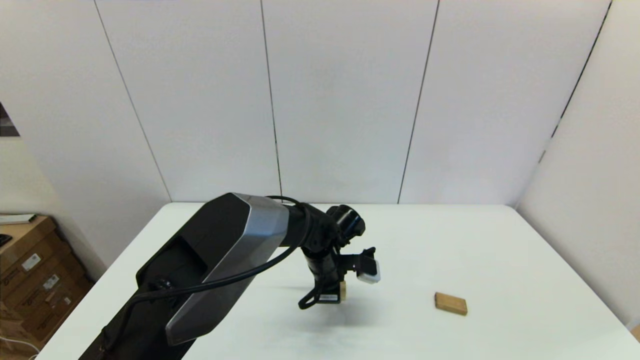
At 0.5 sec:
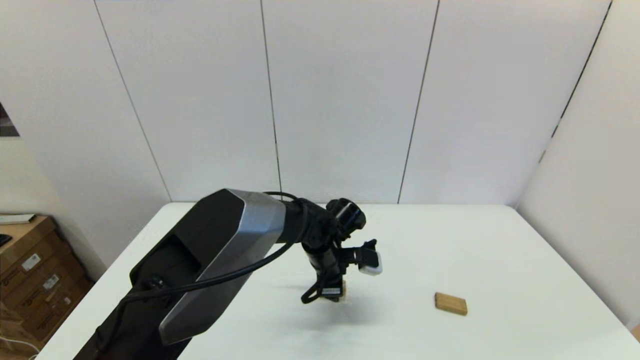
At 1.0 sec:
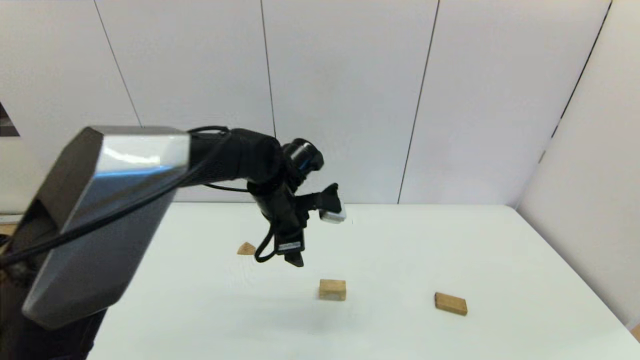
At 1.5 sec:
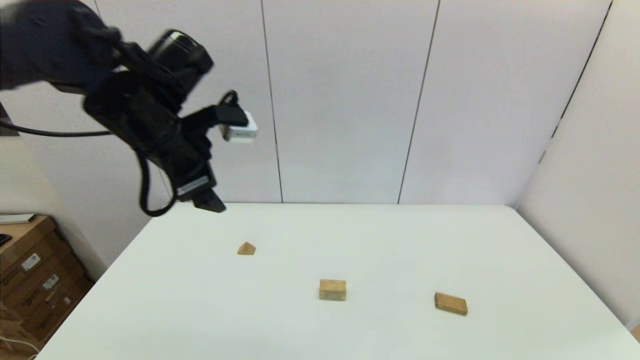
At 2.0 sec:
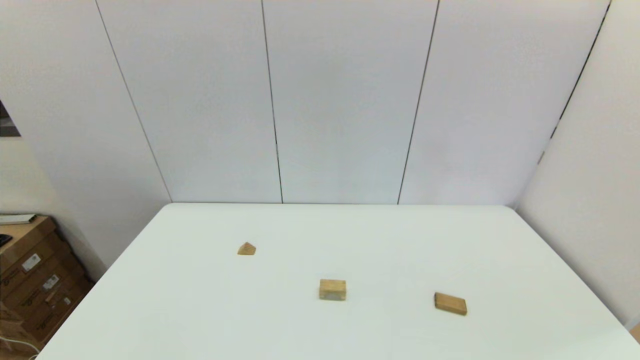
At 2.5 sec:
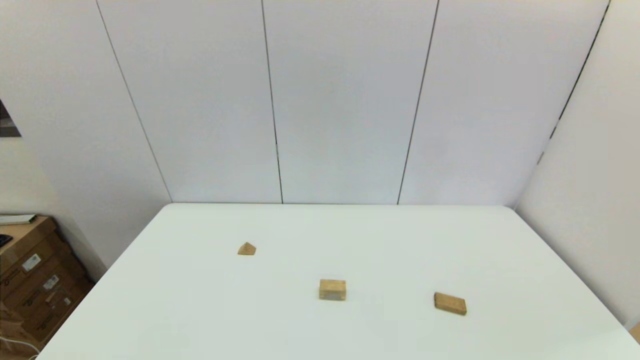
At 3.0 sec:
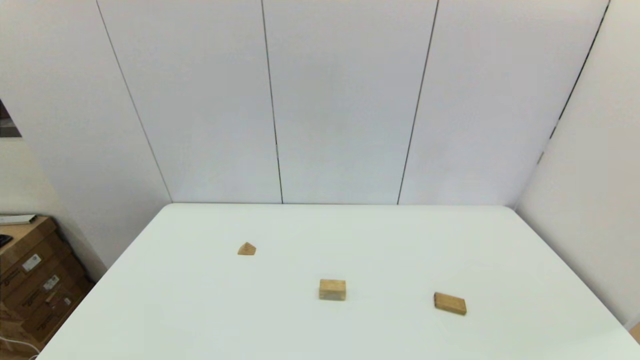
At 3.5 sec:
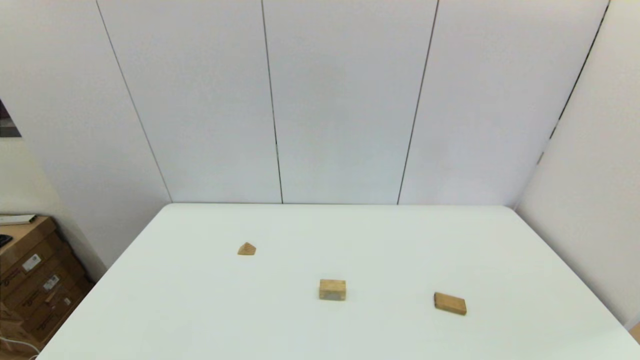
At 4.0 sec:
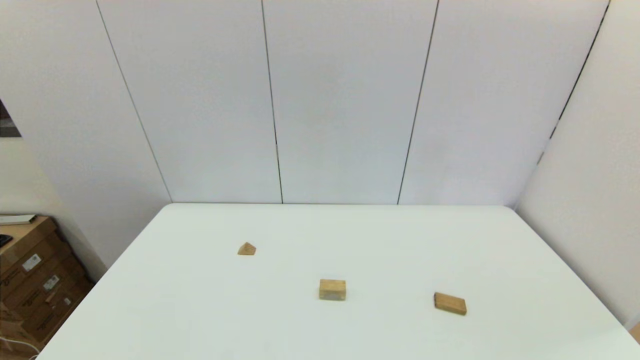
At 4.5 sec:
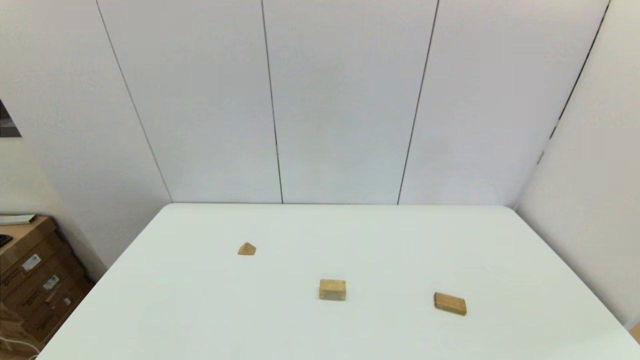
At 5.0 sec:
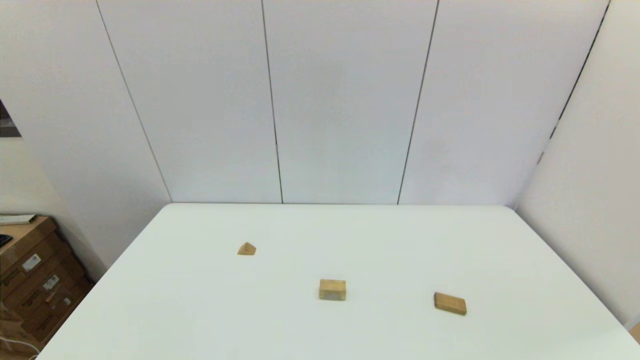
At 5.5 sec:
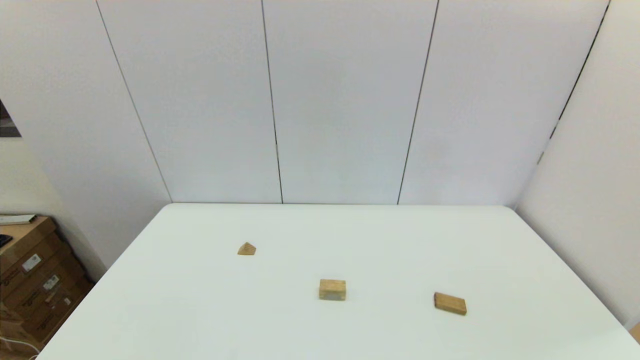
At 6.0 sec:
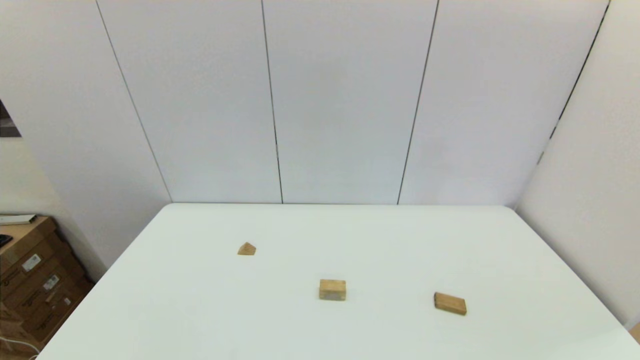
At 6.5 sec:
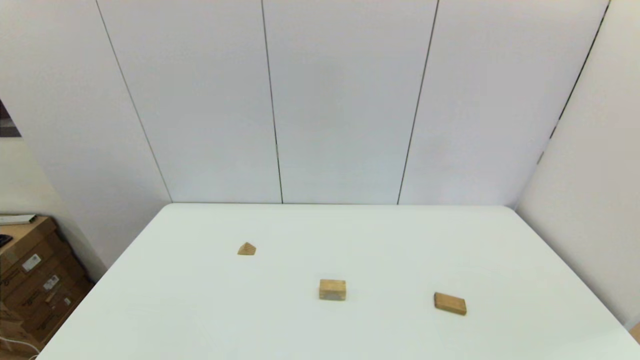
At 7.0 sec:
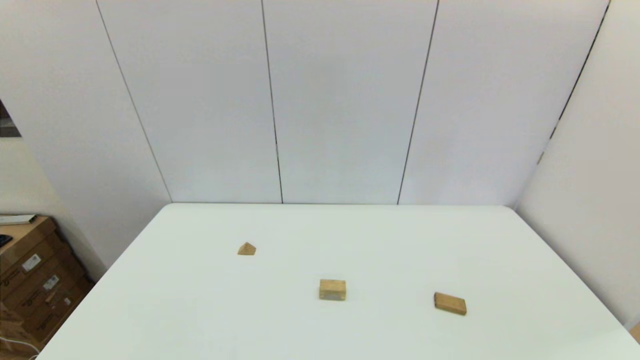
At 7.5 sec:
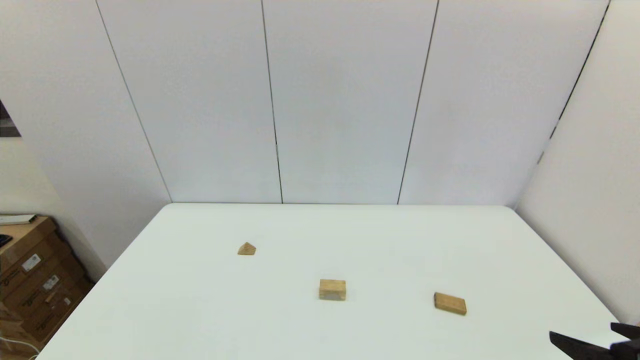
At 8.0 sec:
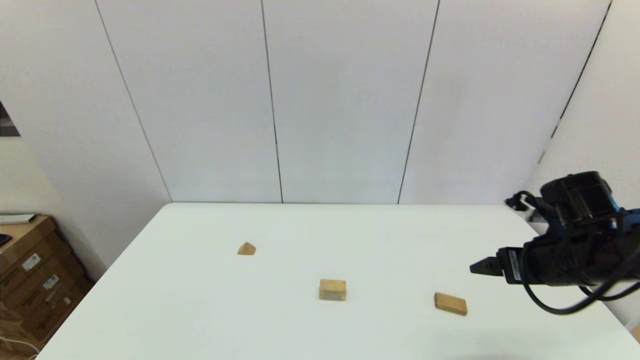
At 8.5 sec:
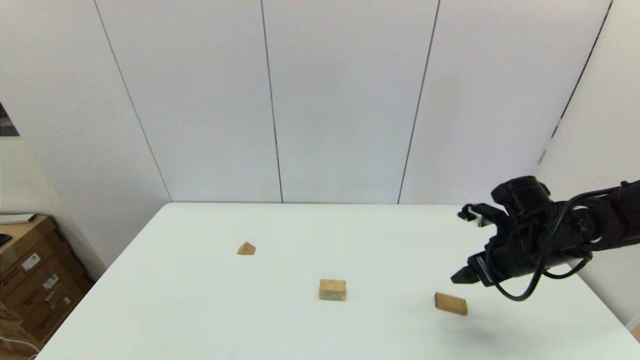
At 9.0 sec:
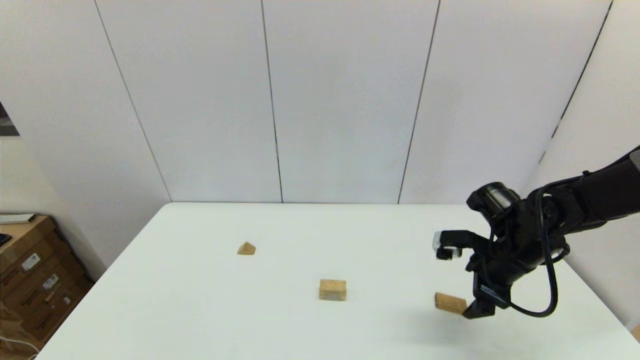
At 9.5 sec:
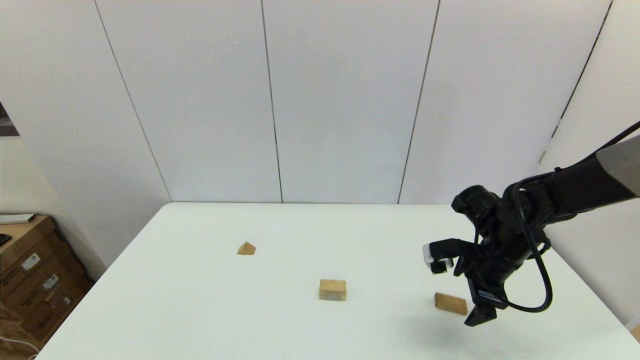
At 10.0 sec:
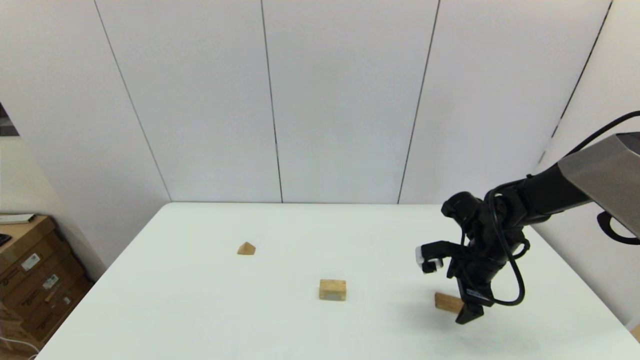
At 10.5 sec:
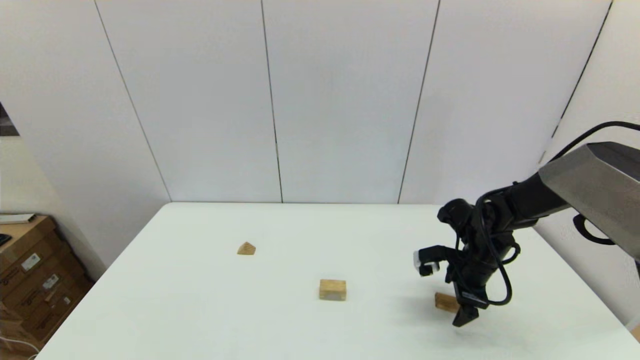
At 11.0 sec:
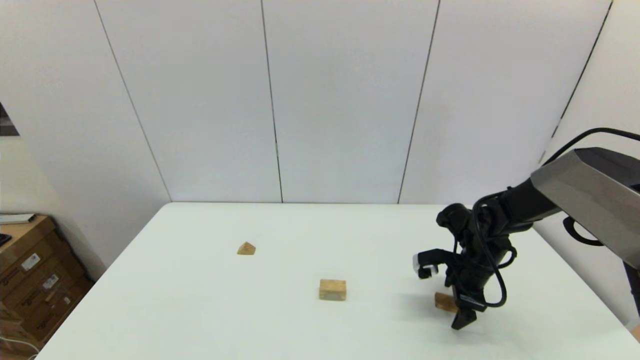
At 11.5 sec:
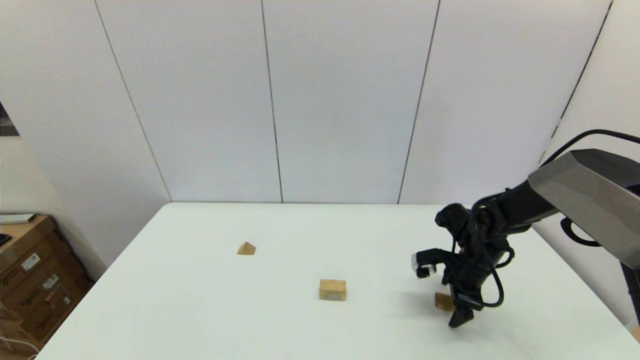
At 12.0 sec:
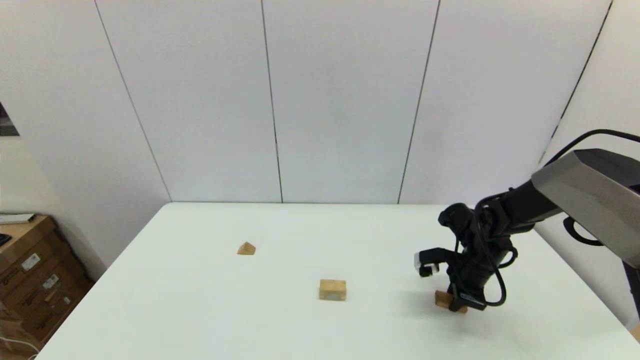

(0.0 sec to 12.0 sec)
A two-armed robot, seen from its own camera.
Task of the whole recording: place the arched building blocks in the center of the table, set up the rectangular building blocks, and then set up the triangular building blocks.
Step, 0.5 sec - 12.0 sec: Grasp the box-shaped block with the right gripper.
0.0 sec - 2.0 sec: The left gripper is displaced upward, to the left and backward by roughly 50 cm, and opens its fingers.
6.0 sec - 8.0 sec: The right gripper shifts about 25 cm forward.
8.0 sec - 10.0 sec: The right gripper moves forward and downward, approximately 15 cm.
10.0 sec - 12.0 sec: The right gripper closes its fingers.

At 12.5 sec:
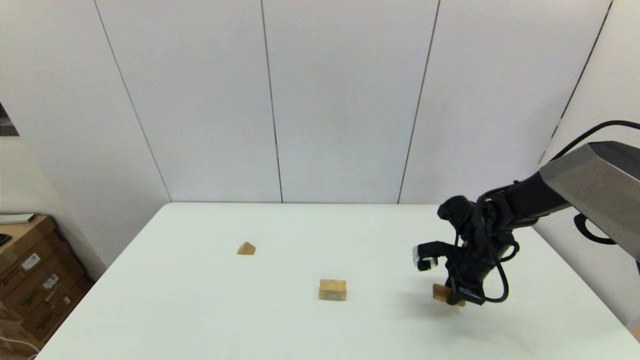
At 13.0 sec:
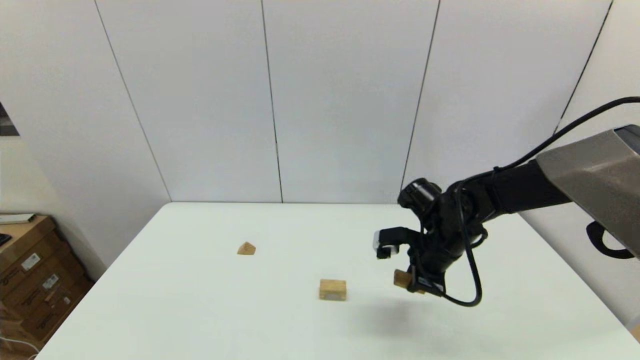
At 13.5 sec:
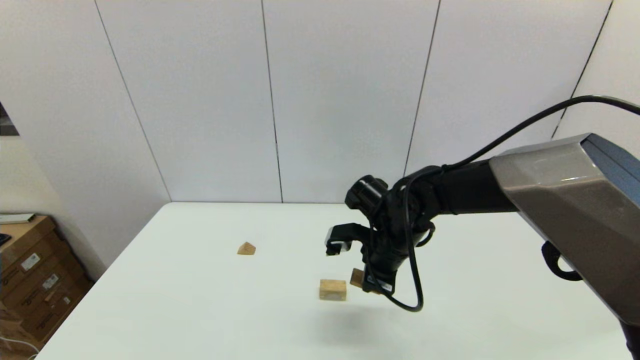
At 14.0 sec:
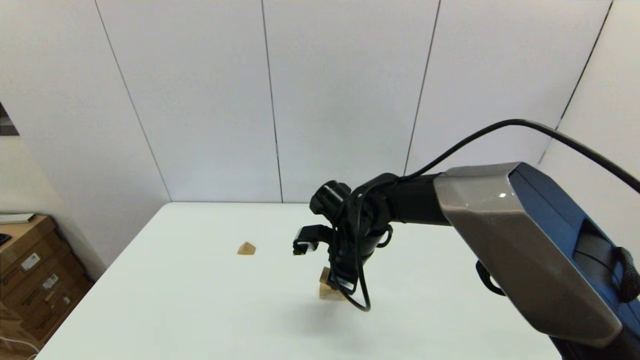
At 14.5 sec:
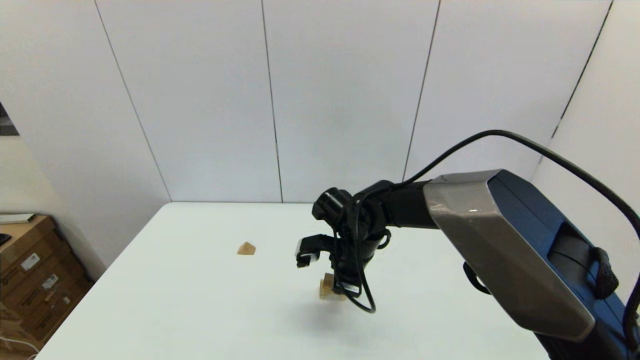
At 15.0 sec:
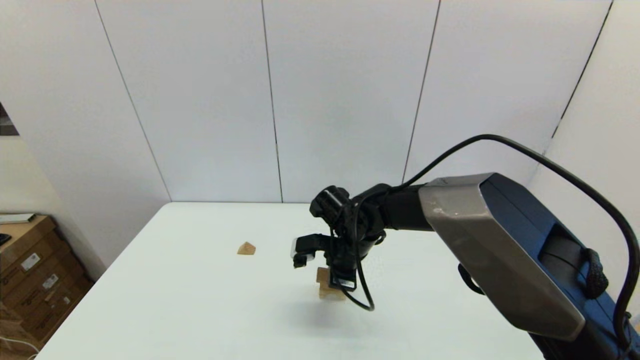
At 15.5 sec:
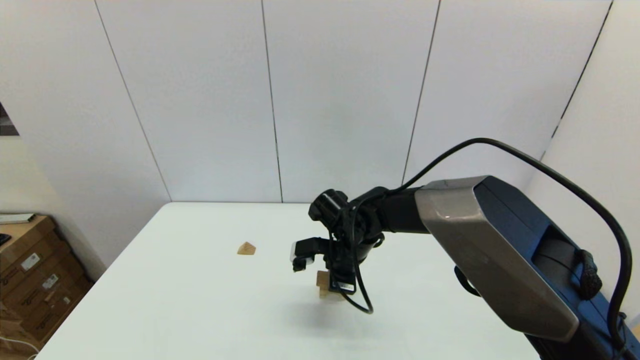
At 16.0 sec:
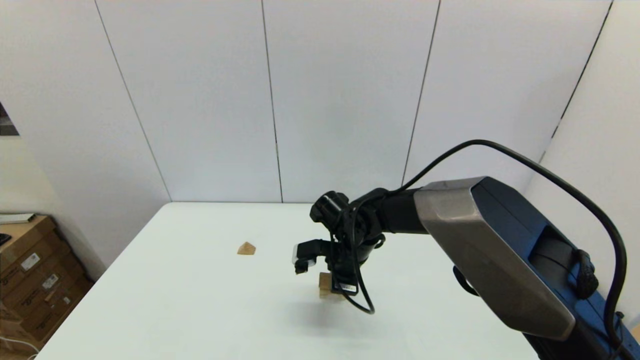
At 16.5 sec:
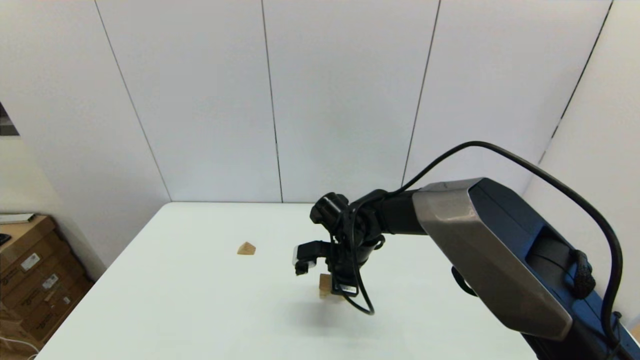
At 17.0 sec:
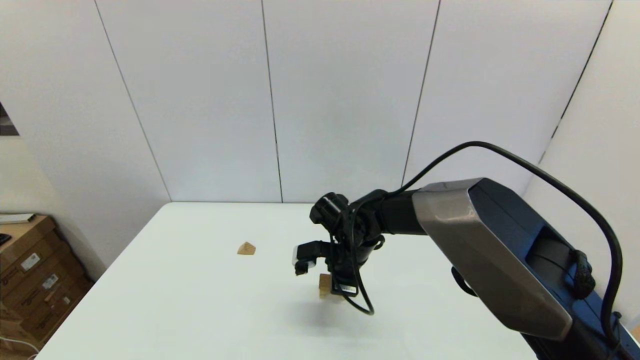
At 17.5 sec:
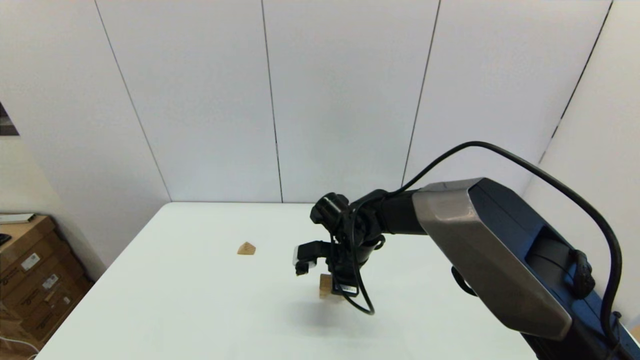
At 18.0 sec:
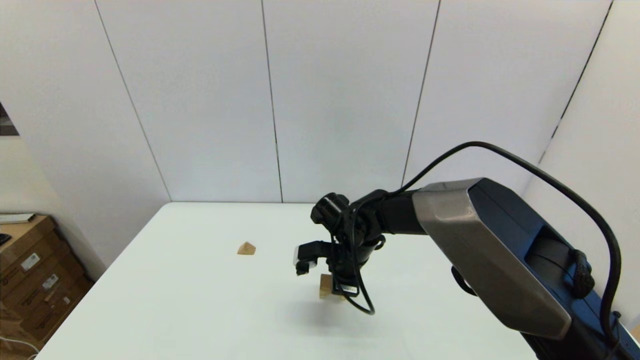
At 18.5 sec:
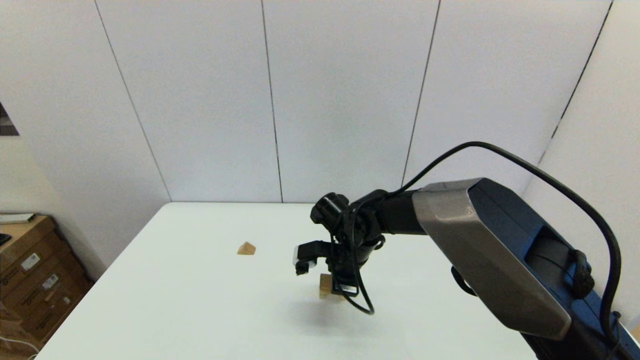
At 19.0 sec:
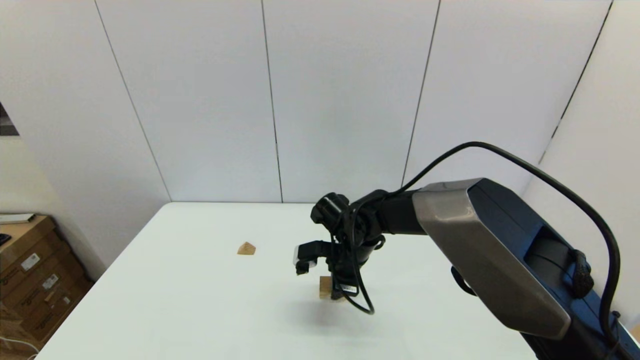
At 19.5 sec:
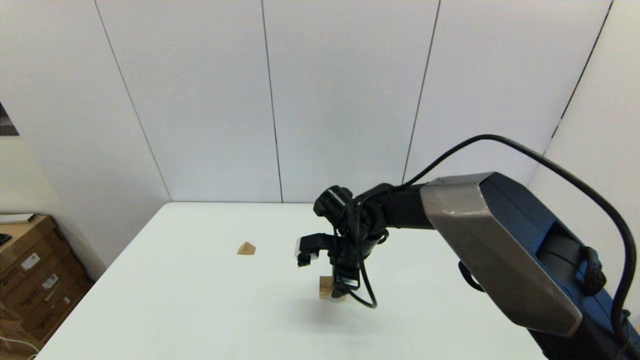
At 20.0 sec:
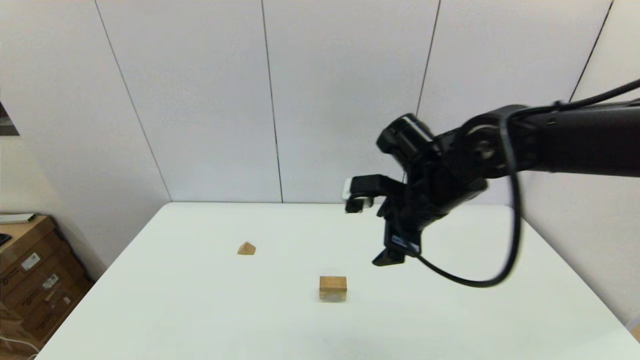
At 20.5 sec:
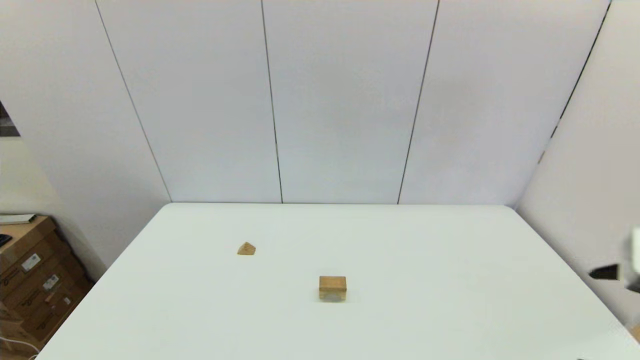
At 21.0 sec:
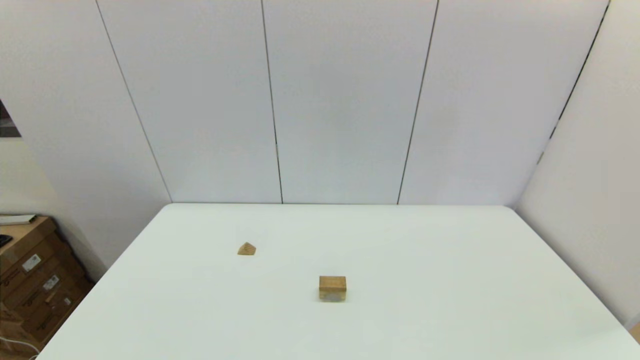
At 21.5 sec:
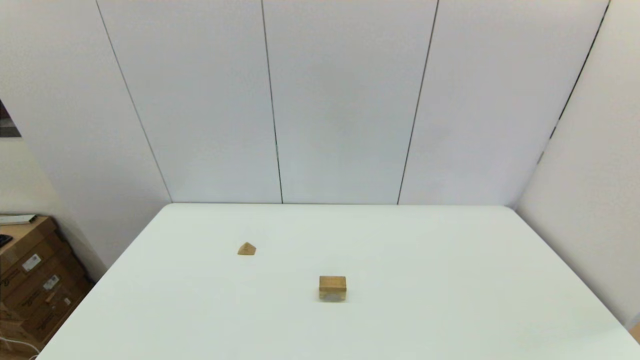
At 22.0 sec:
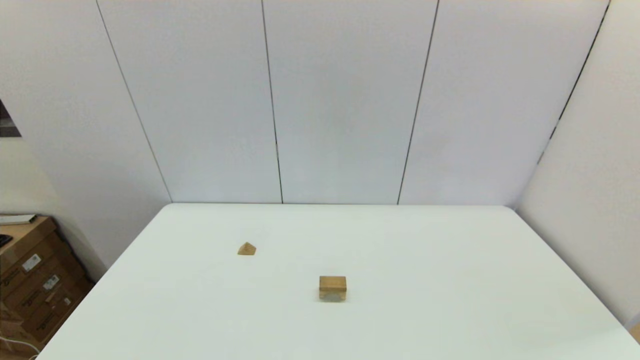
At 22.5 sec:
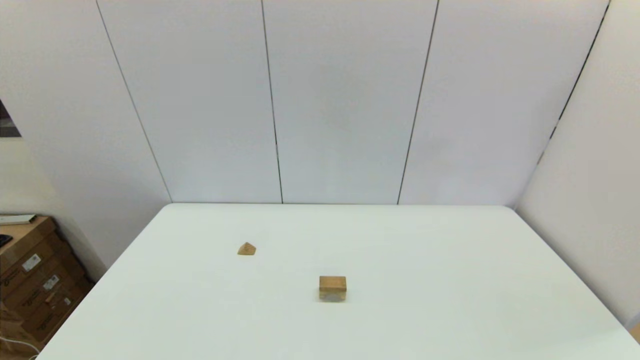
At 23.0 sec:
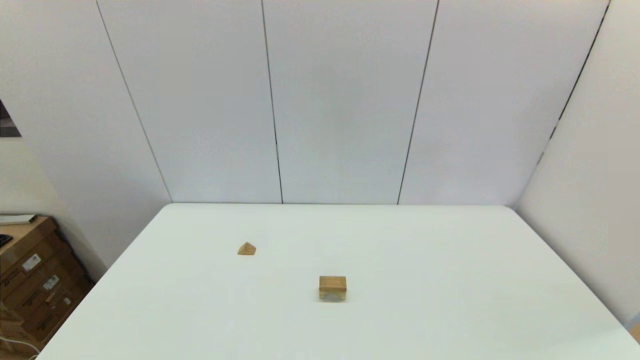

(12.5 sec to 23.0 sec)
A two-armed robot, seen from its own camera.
Task of the whole recording: place the arched building blocks in the center of the table, set up the rectangular building blocks, and then set up the triangular building blocks.
Step, 12.5 sec - 19.0 sec: Place the box-shaped block onto the arch-shaped block with the right gripper.
12.5 sec - 14.5 sec: The right gripper moves to the left, roughly 20 cm.
14.5 sec - 16.5 sec: The grippers move only a little.
16.5 sec - 19.0 sec: The right gripper opens.
19.0 sec - 21.0 sec: The right gripper goes roughly 50 cm backward and to the right, and opens up.
